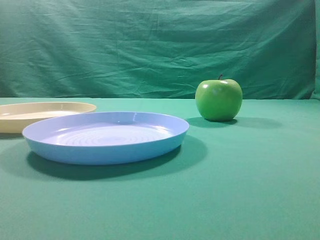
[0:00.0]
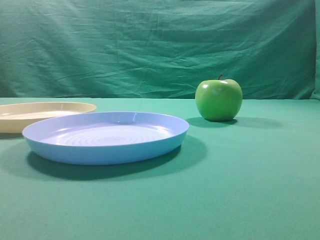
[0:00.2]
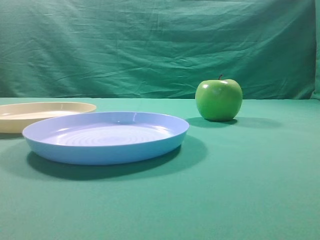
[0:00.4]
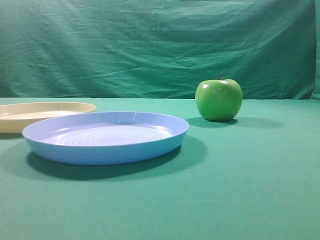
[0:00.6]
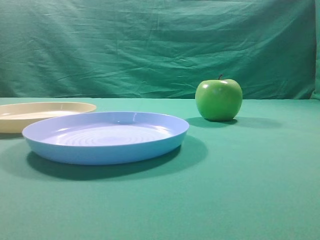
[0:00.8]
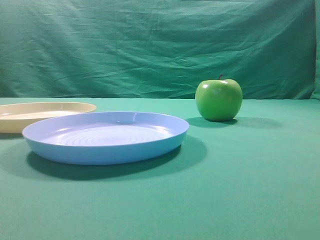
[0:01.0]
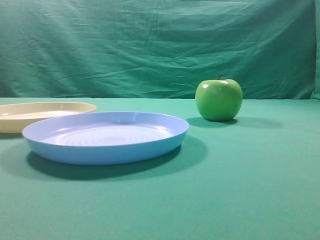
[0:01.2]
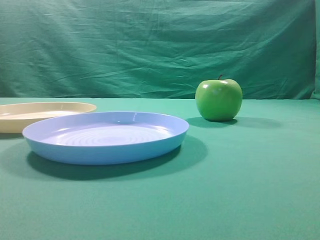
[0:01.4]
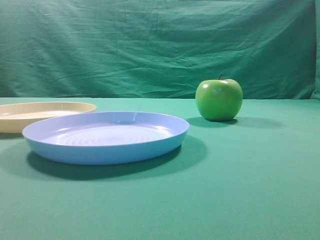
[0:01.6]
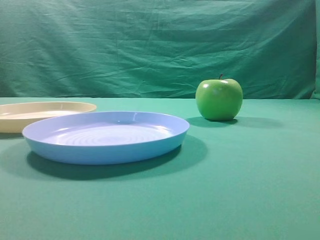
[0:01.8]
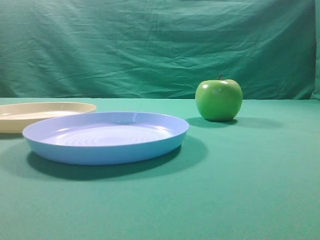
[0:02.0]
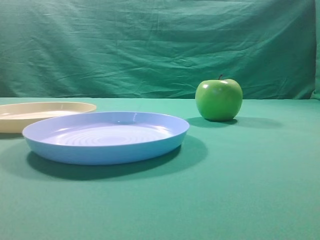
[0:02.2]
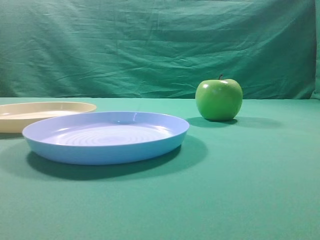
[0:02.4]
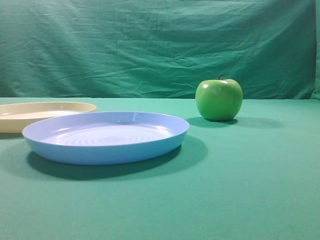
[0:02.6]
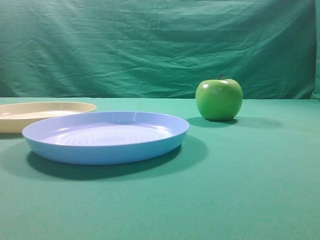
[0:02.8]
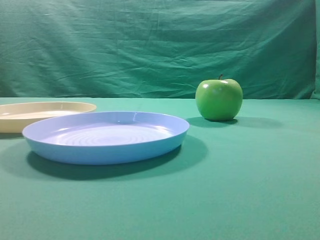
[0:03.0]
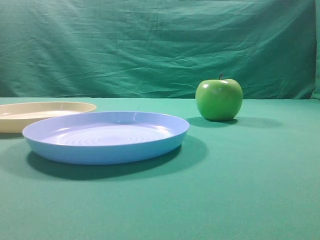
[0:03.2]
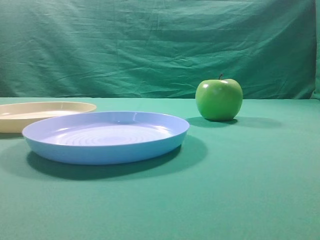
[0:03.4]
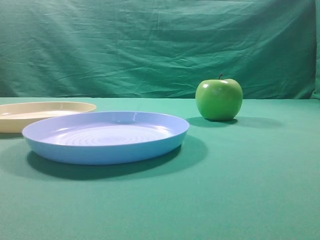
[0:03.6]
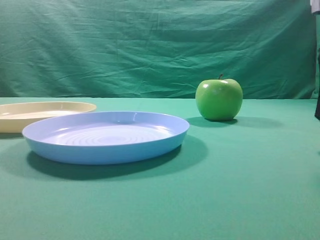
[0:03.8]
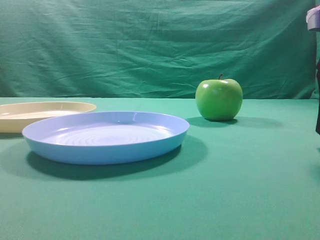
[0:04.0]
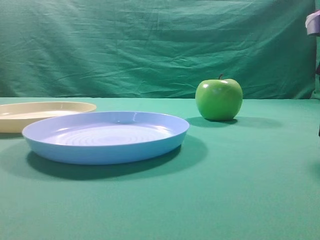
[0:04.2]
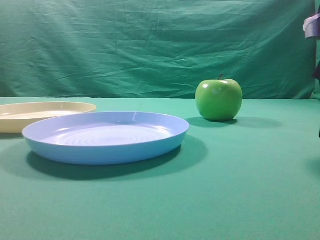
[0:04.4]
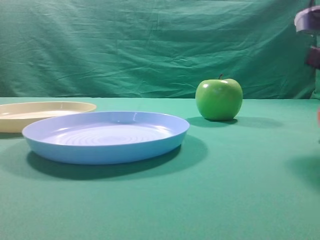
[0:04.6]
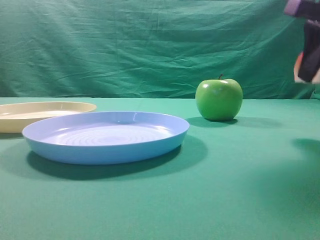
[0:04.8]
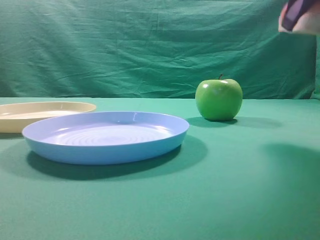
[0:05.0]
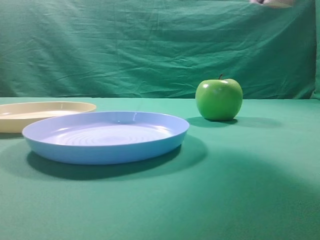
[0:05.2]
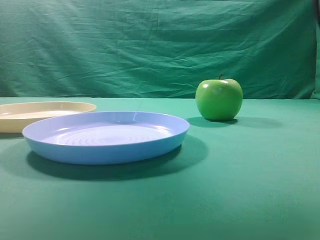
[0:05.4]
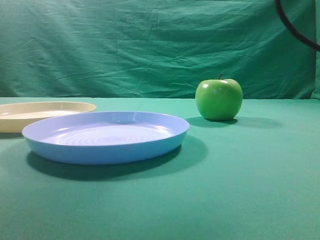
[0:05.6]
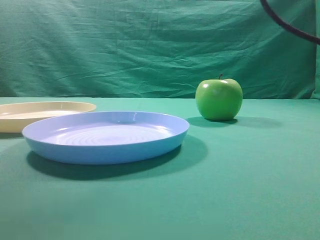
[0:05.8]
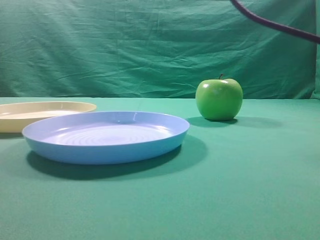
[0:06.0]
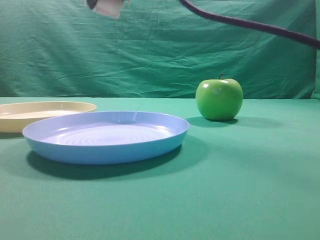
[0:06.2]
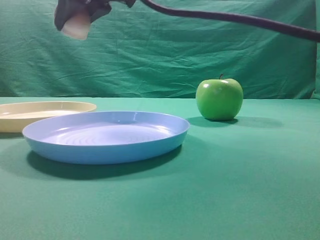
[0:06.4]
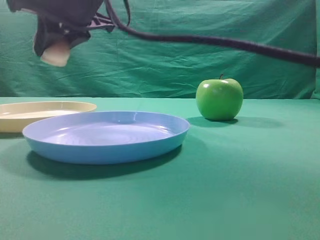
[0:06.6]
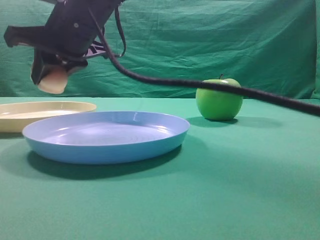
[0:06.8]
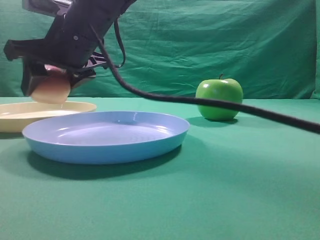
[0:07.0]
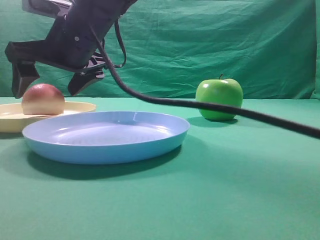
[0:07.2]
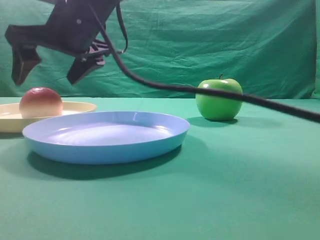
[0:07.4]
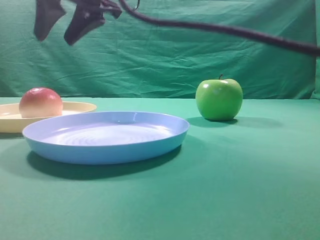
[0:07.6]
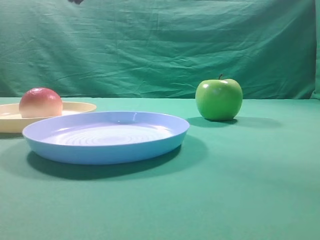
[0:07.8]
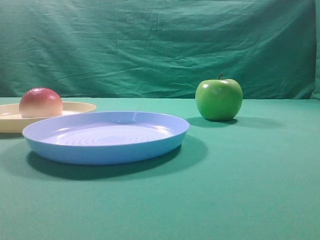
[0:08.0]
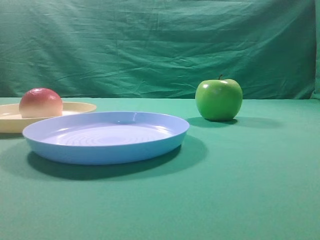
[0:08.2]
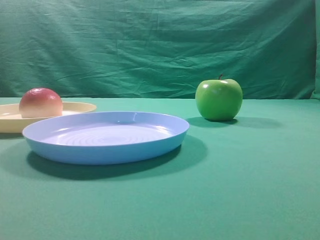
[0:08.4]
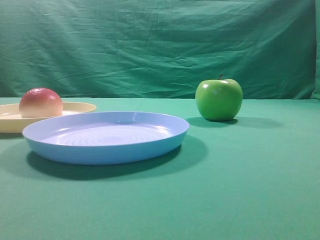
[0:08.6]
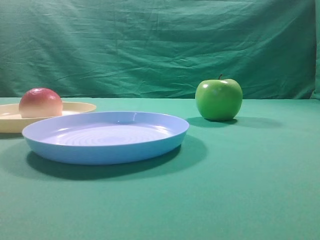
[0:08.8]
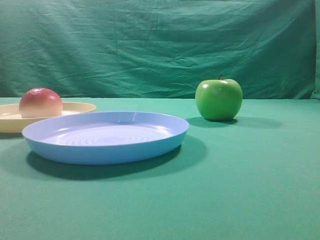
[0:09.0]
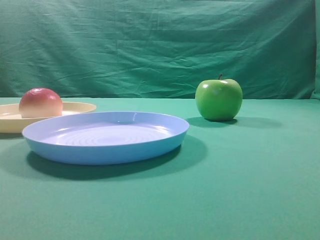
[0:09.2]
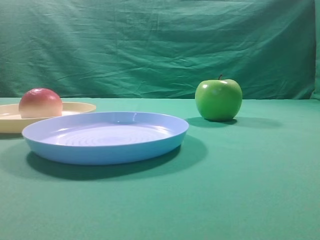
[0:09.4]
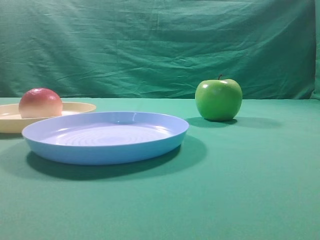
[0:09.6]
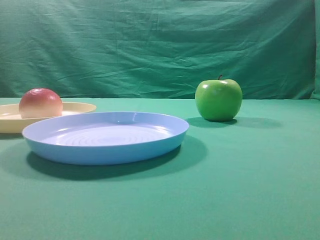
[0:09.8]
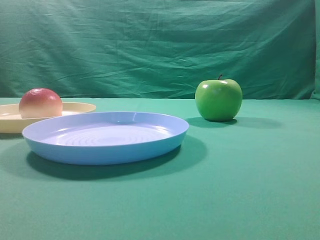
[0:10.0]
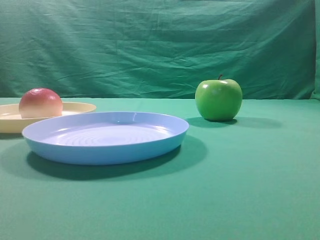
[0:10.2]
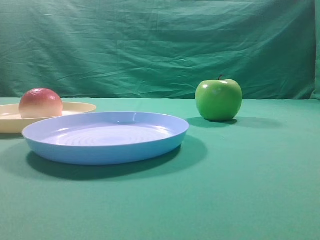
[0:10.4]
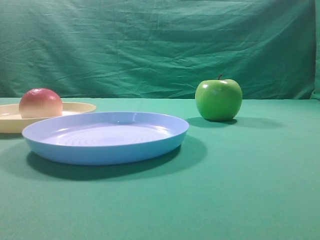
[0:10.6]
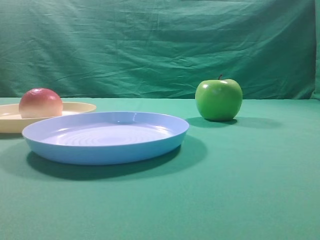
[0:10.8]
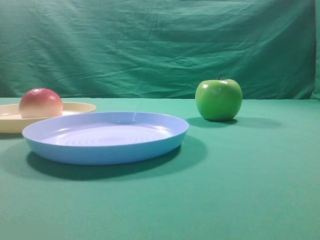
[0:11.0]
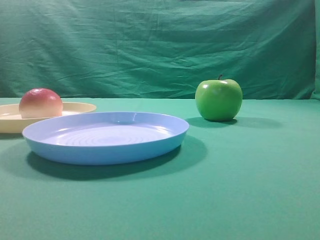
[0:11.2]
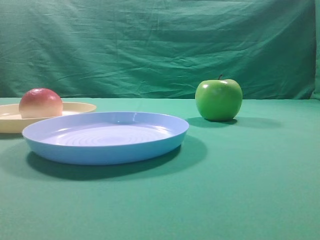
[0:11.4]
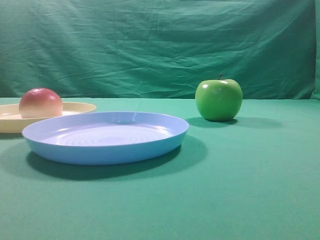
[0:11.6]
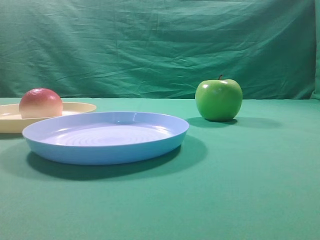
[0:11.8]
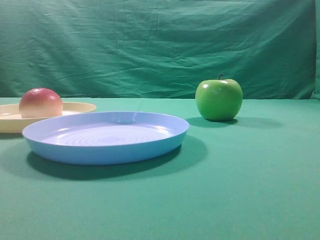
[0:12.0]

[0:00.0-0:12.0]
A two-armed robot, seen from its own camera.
Step, 0:04.8 to 0:07.4: Place the picked object on the yellow plate.
